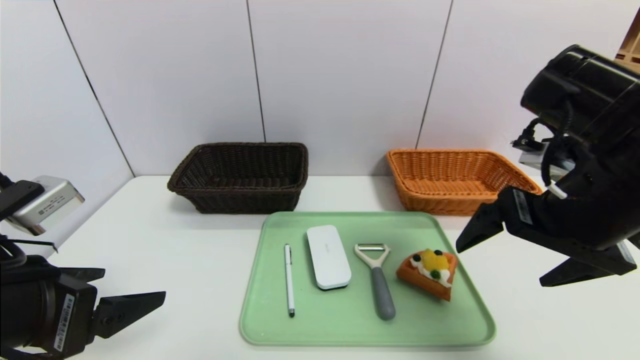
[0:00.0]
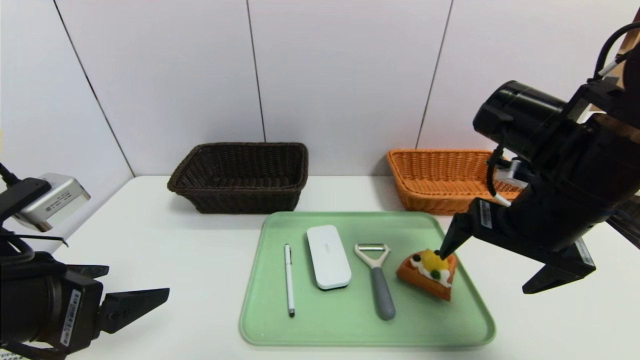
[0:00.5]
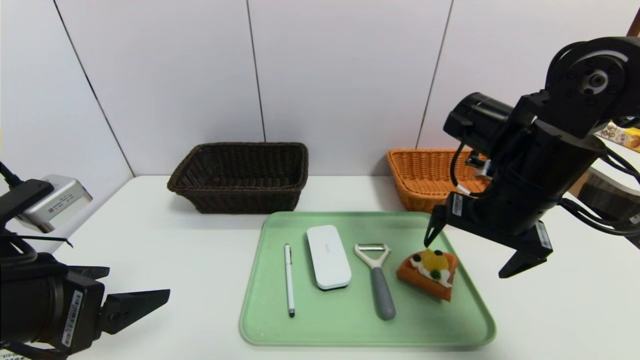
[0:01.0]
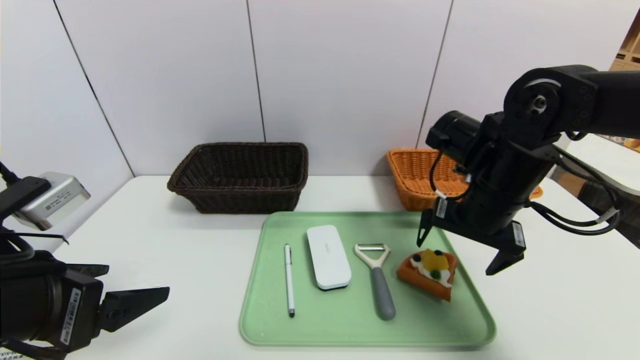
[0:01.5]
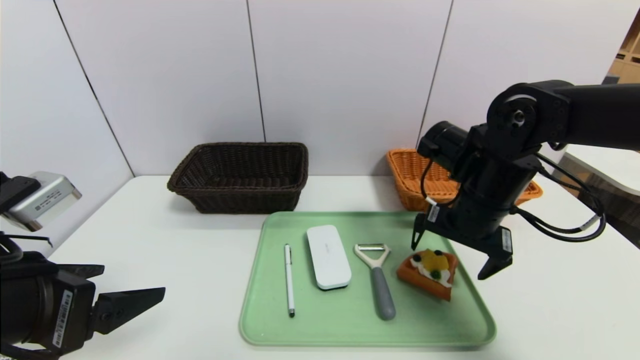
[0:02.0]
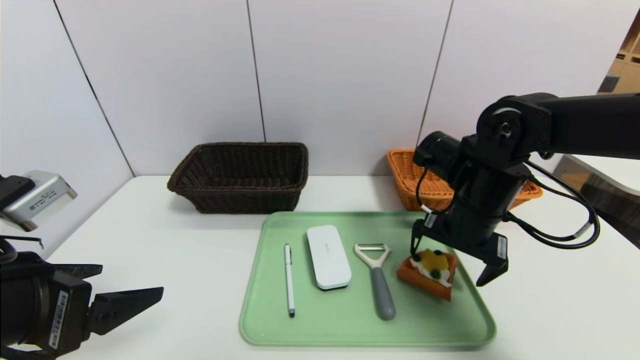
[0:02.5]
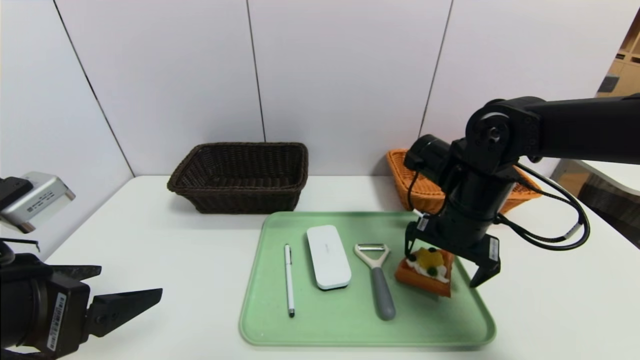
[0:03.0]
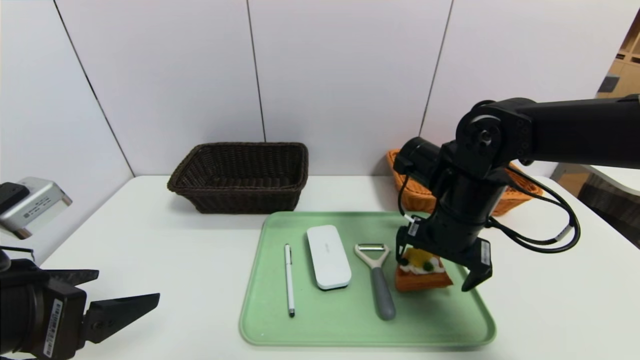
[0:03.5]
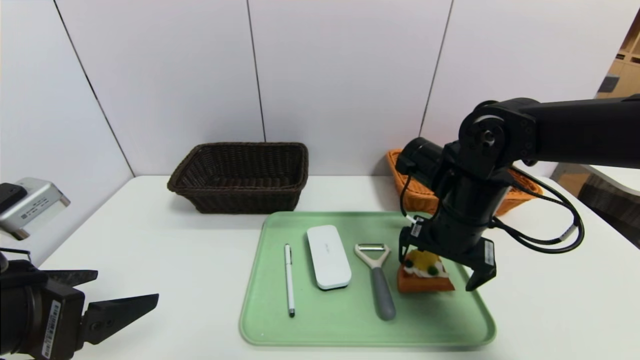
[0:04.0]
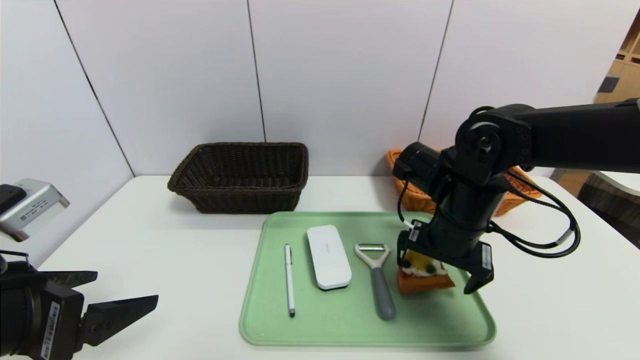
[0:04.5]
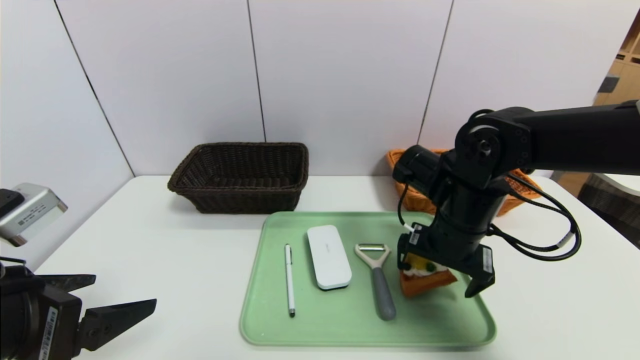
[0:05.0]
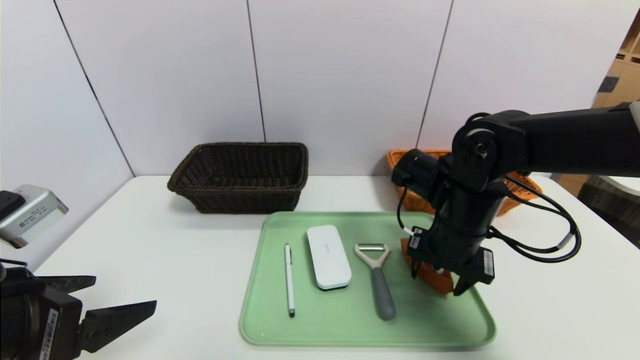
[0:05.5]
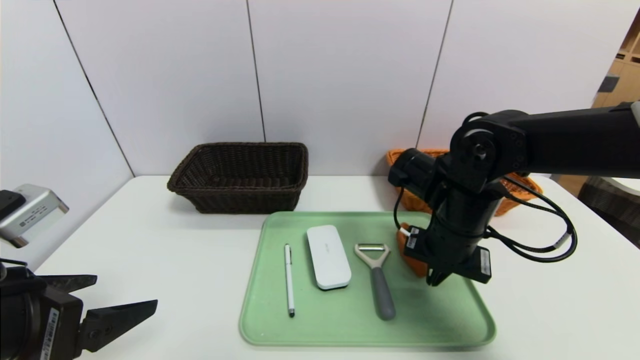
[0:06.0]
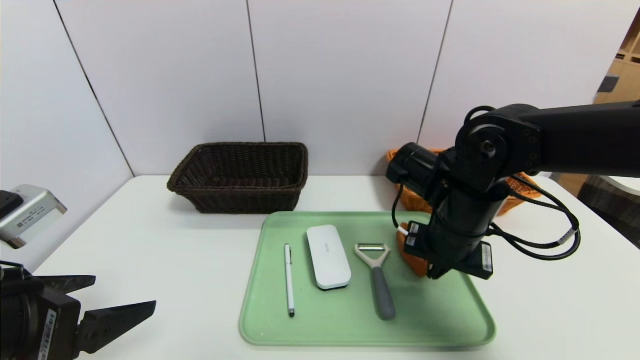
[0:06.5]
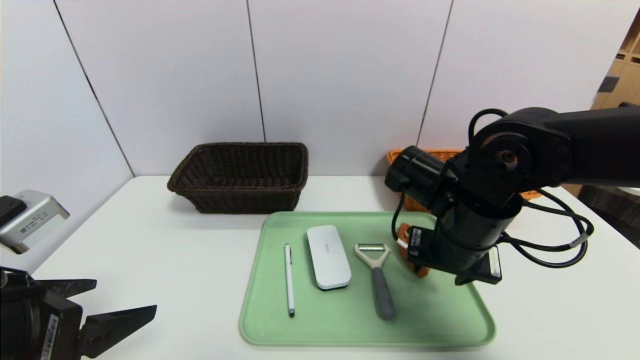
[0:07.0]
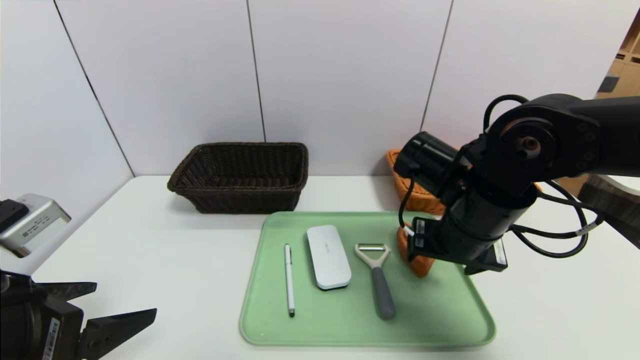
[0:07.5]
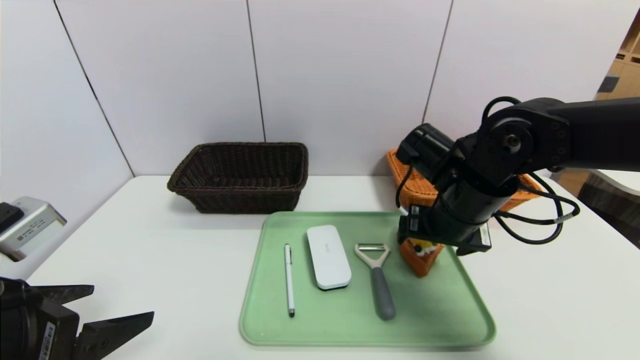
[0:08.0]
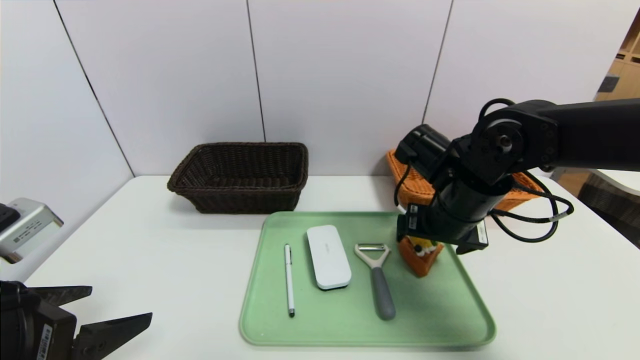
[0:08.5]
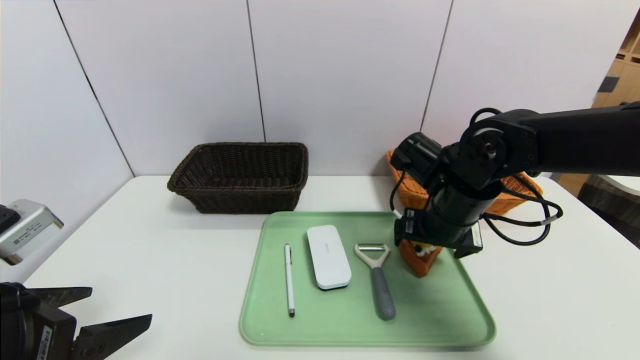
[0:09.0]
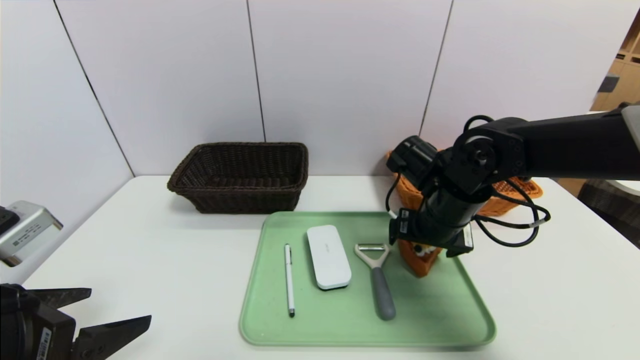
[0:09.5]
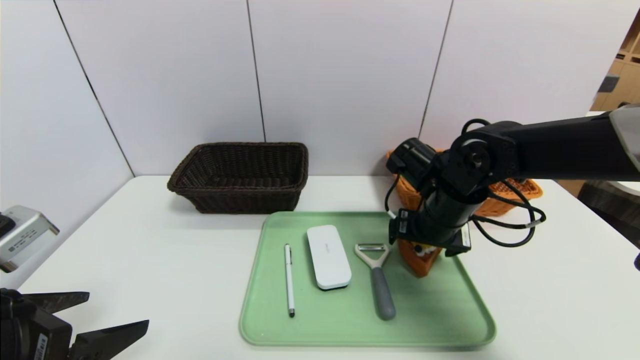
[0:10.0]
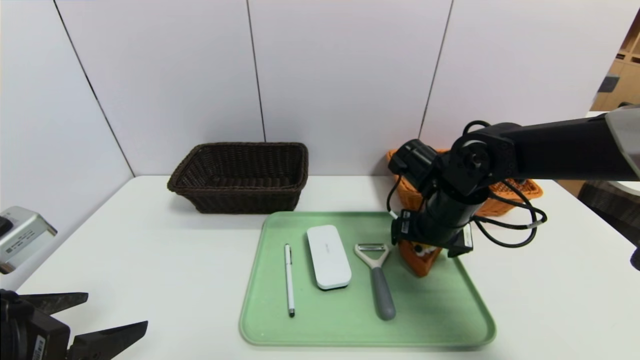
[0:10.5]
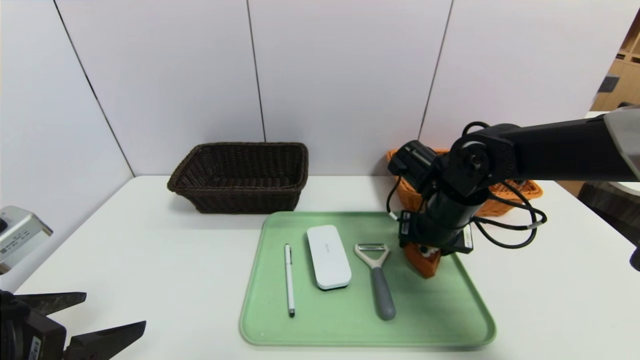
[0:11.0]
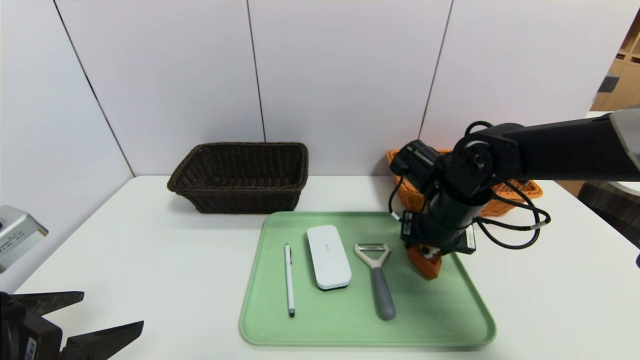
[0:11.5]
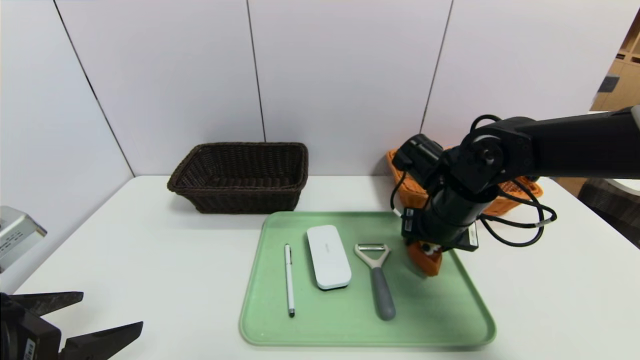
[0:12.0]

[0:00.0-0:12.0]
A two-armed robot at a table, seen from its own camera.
Task of the whole recording: place the food in the right basket with the right gripper, and place the non food items in the left basket with the left gripper.
0:00.0 to 0:02.0: The right gripper shifts roughly 15 cm forward and downward.
0:02.0 to 0:04.0: The grippers make only small movements.
0:04.0 to 0:06.0: The right gripper closes.
0:06.0 to 0:08.0: The right gripper opens its fingers.
0:08.0 to 0:10.0: The grippers make only small movements.
0:10.0 to 0:12.0: The right gripper closes its fingers.

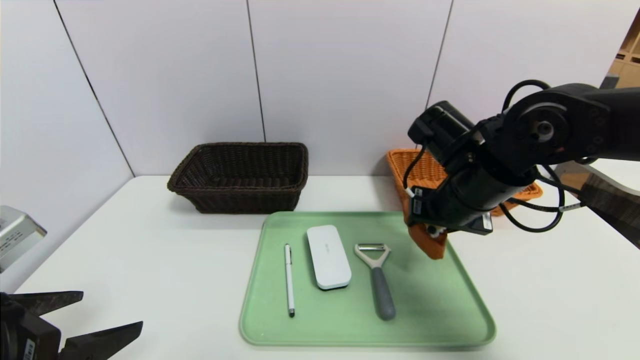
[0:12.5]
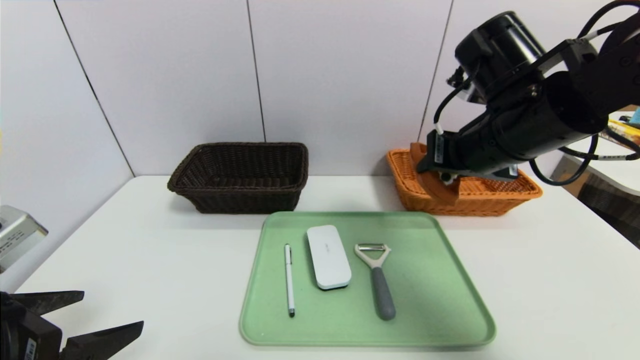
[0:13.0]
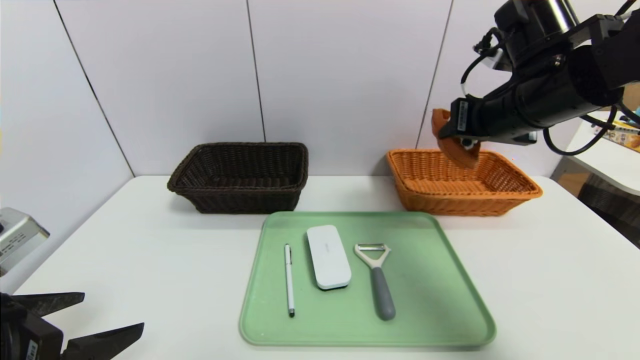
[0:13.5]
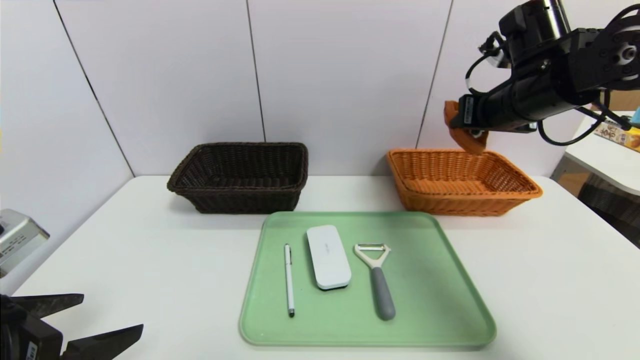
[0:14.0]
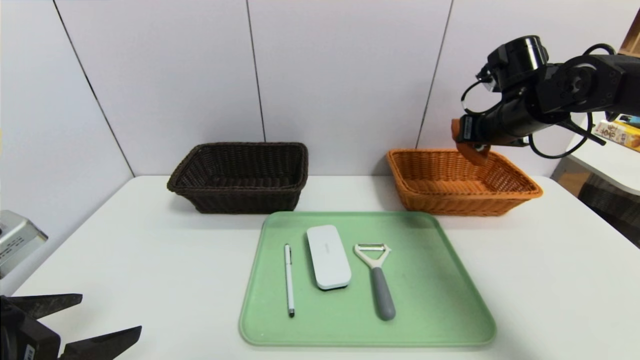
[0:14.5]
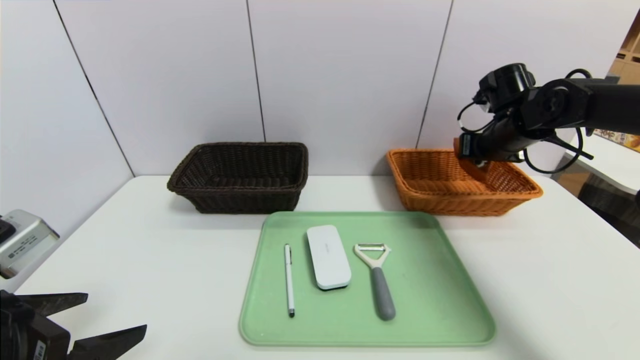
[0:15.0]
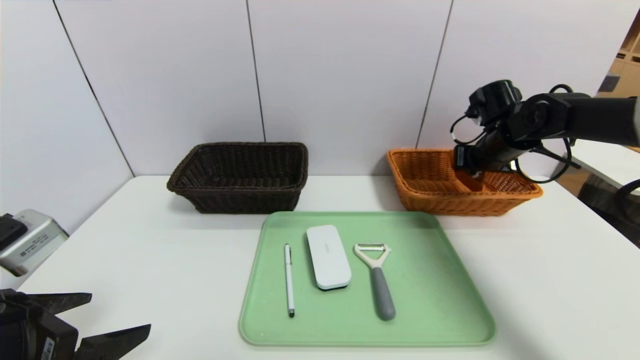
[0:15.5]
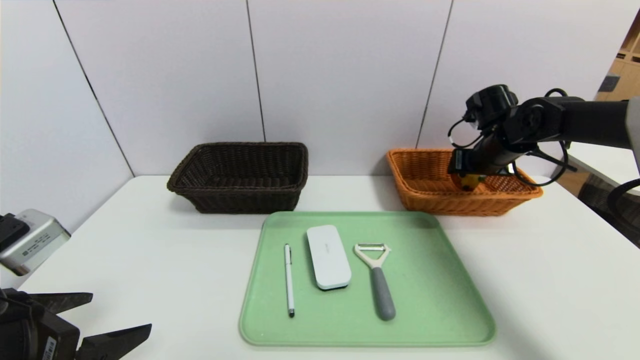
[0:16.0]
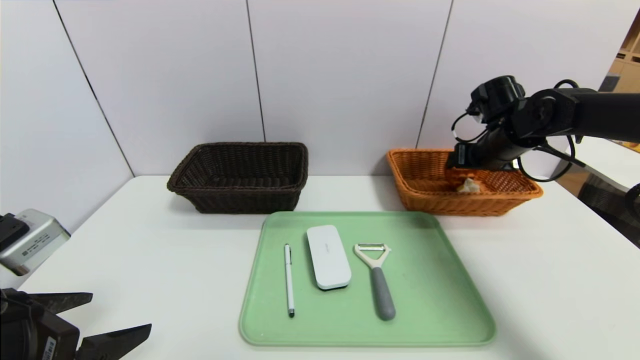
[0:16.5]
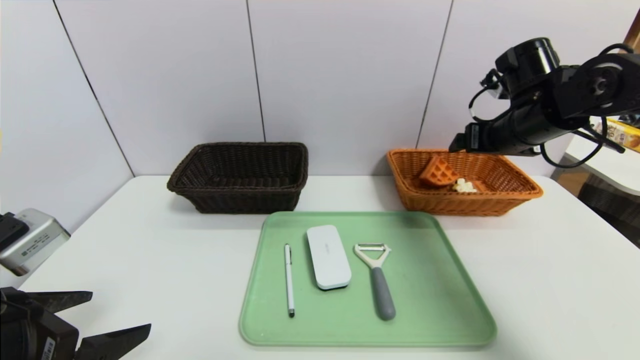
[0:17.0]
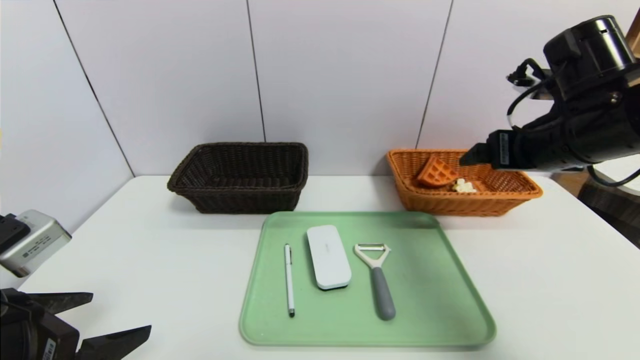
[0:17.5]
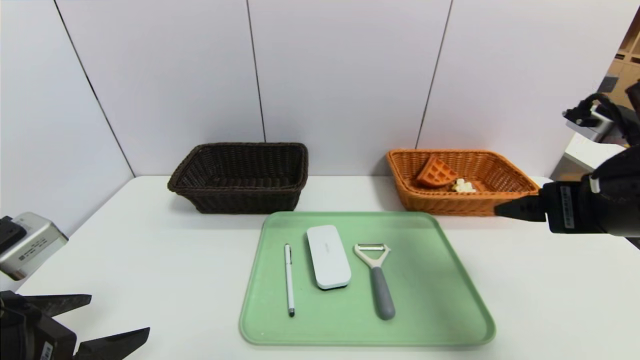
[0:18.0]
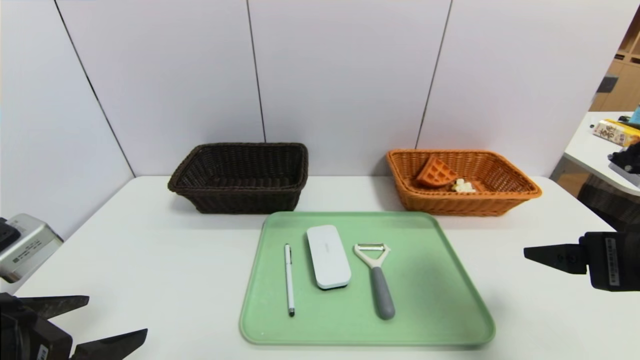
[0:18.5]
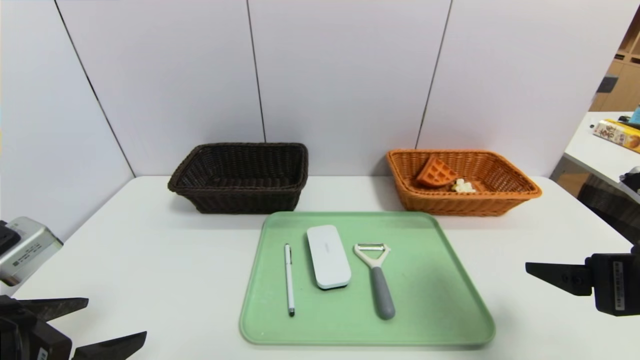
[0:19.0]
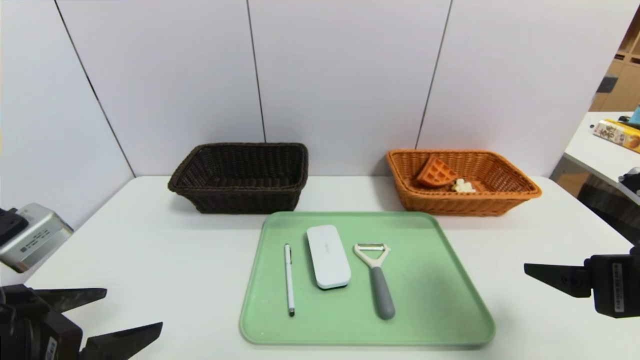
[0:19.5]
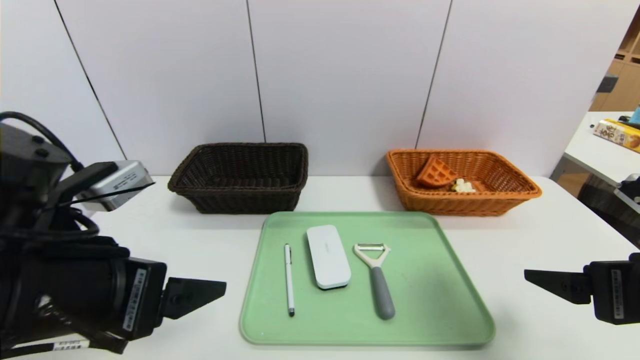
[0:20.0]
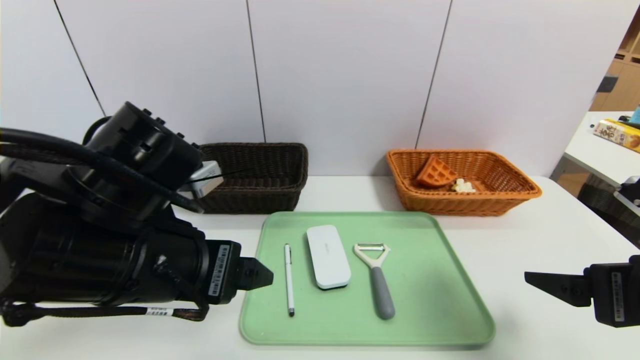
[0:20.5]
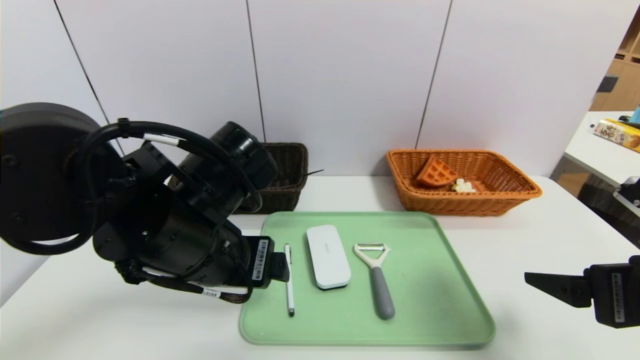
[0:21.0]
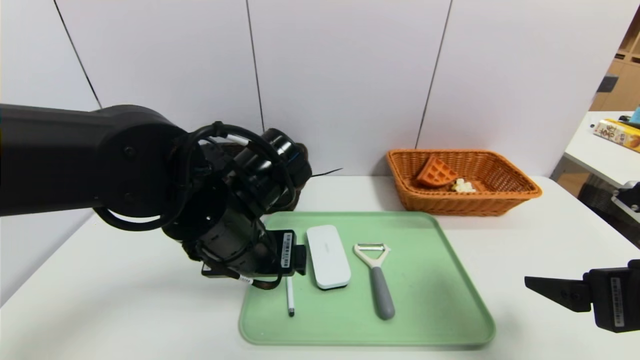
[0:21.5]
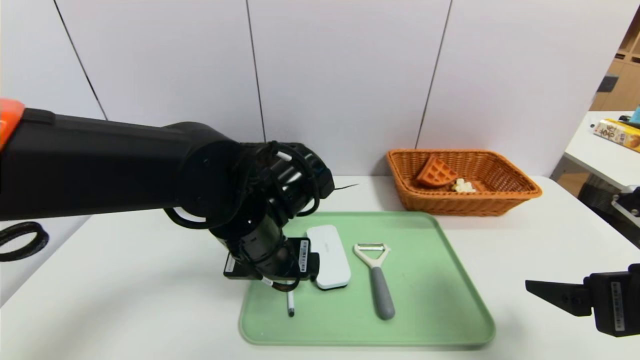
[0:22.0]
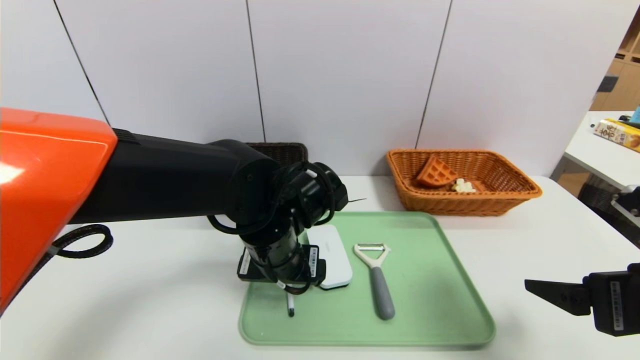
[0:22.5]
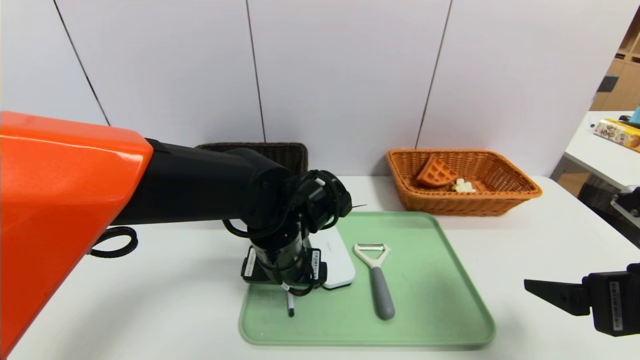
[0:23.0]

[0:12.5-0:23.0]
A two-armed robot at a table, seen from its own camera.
Task of the whole recording: place the food in the right basket with the right gripper, and place the non food items in the left basket with the left gripper.
Step, 0:12.5 to 0:16.5: Grasp the waffle and put it in the right basket.
0:12.5 to 0:14.5: The right gripper goes about 15 cm to the right and forward.
0:14.5 to 0:16.5: The right gripper is displaced downward by about 5 cm, and opens its fingers.
0:16.5 to 0:19.0: The right gripper goes roughly 30 cm backward.
0:19.0 to 0:21.0: The left gripper moves to the right and forward, roughly 20 cm.
0:21.0 to 0:23.0: The left gripper travels downward, to the right and forward by approximately 10 cm.
